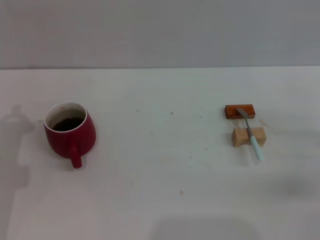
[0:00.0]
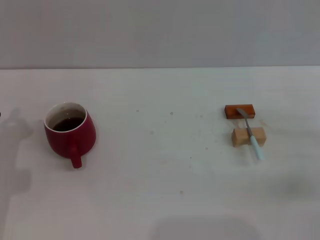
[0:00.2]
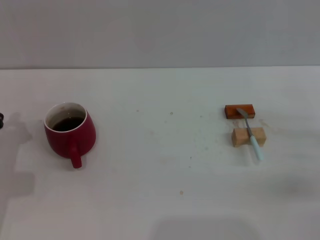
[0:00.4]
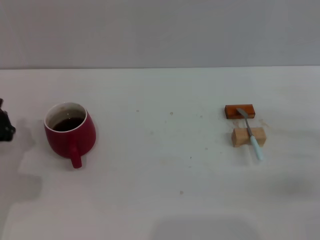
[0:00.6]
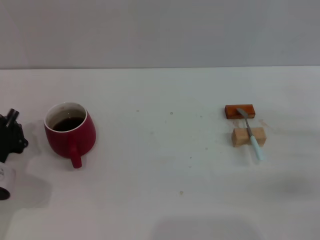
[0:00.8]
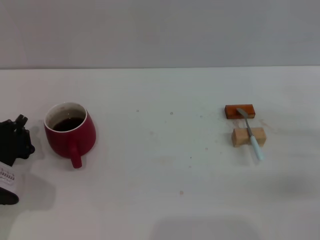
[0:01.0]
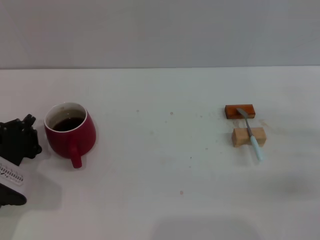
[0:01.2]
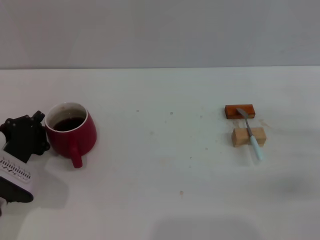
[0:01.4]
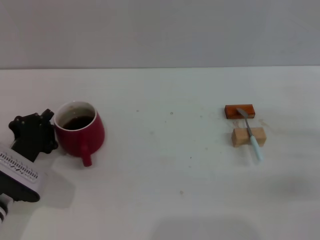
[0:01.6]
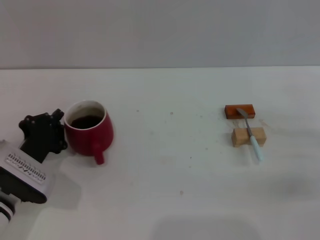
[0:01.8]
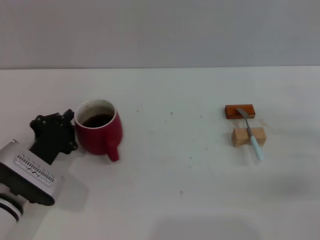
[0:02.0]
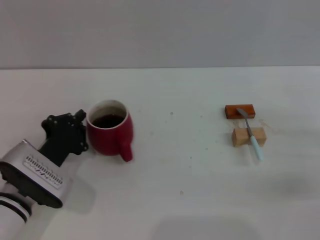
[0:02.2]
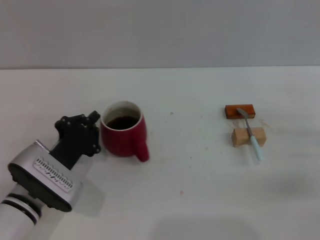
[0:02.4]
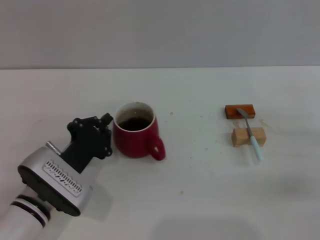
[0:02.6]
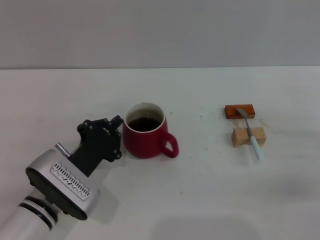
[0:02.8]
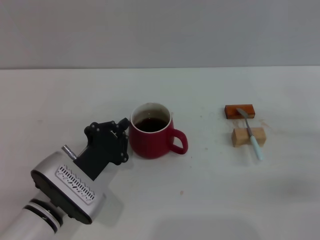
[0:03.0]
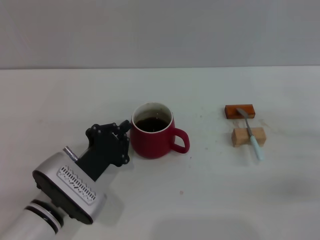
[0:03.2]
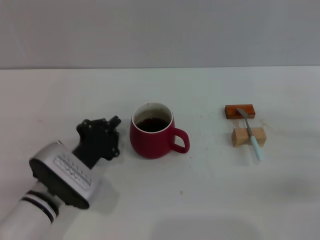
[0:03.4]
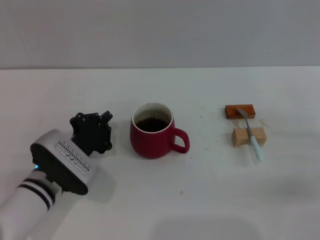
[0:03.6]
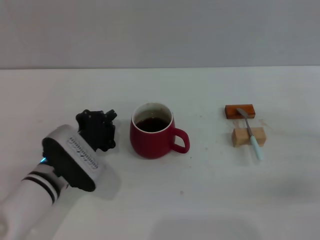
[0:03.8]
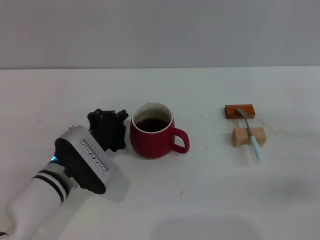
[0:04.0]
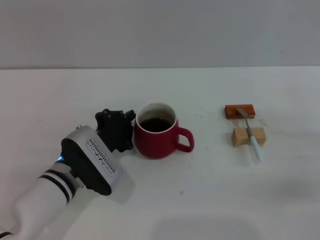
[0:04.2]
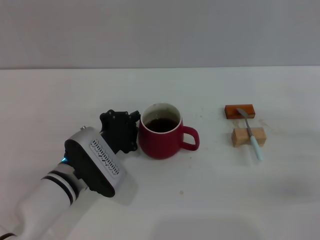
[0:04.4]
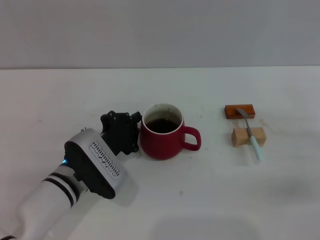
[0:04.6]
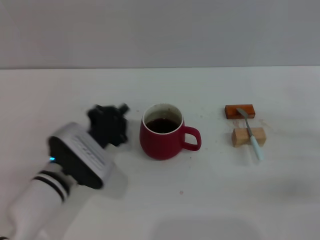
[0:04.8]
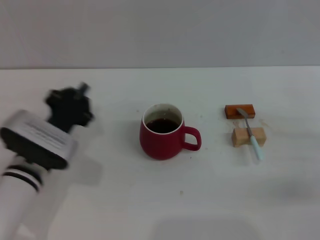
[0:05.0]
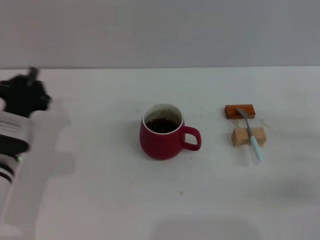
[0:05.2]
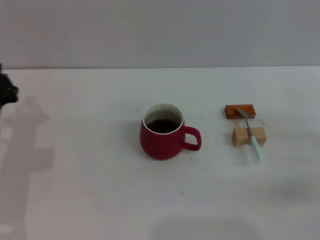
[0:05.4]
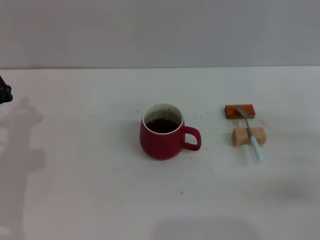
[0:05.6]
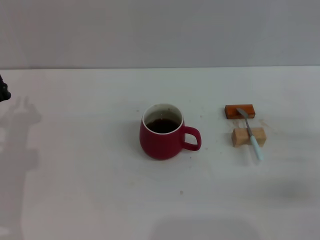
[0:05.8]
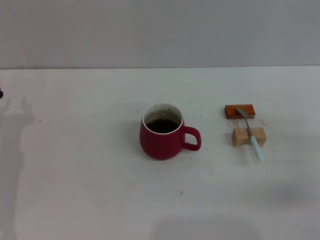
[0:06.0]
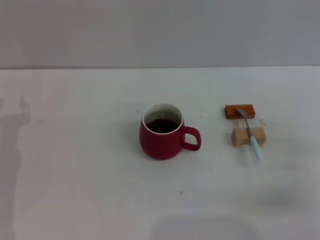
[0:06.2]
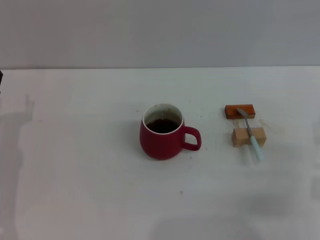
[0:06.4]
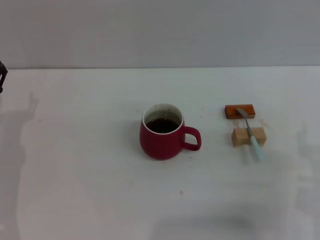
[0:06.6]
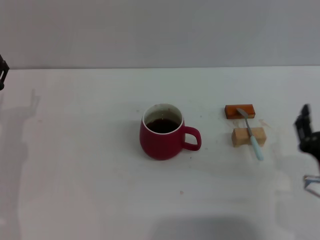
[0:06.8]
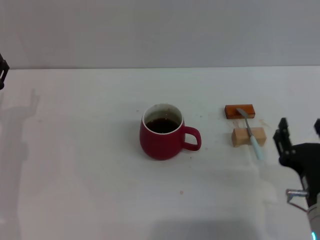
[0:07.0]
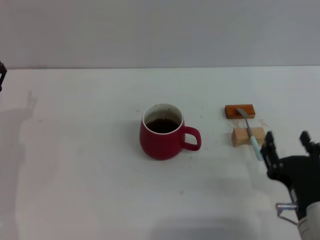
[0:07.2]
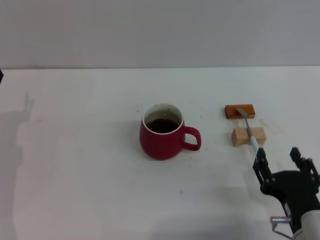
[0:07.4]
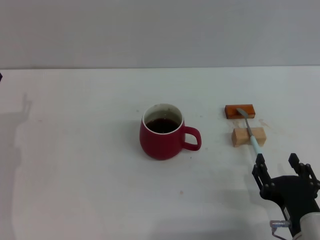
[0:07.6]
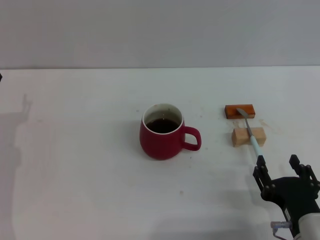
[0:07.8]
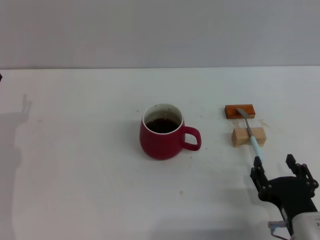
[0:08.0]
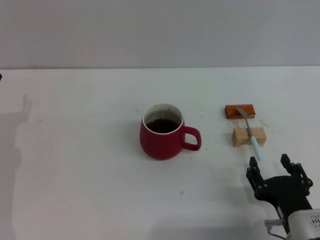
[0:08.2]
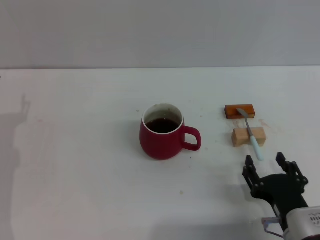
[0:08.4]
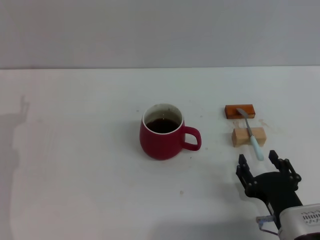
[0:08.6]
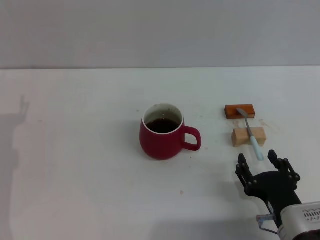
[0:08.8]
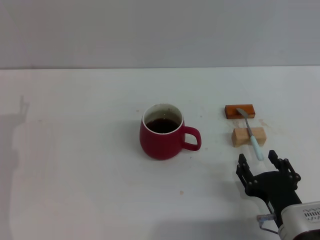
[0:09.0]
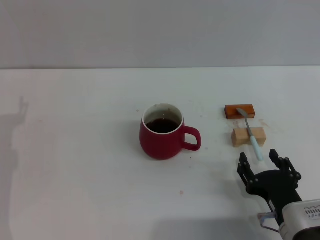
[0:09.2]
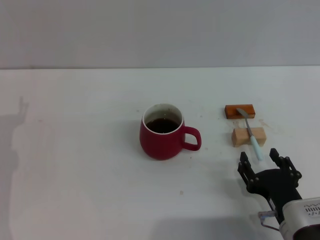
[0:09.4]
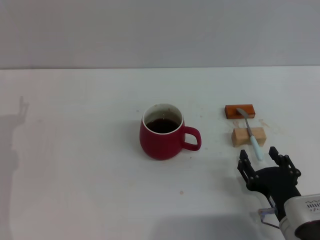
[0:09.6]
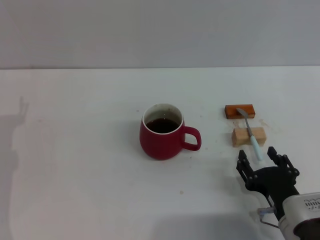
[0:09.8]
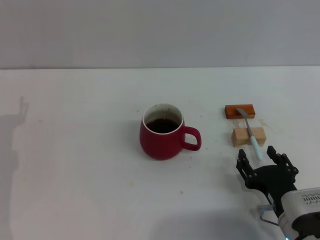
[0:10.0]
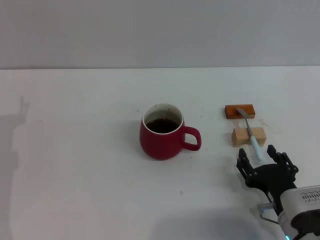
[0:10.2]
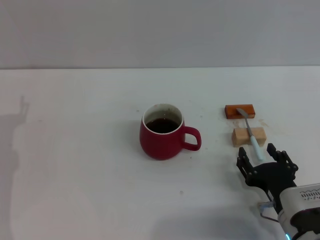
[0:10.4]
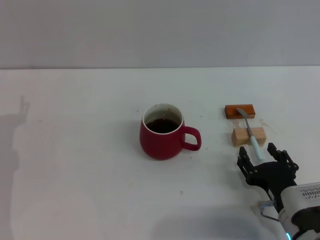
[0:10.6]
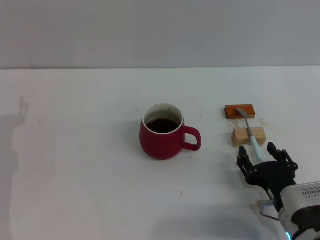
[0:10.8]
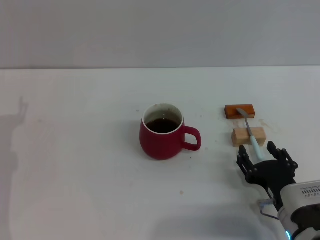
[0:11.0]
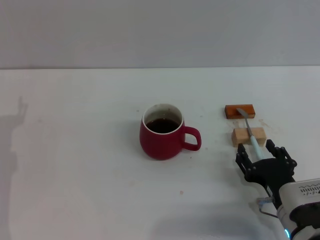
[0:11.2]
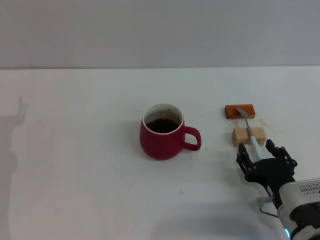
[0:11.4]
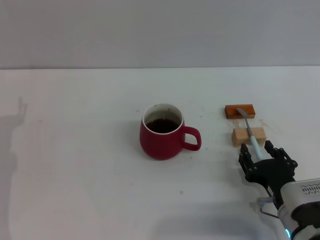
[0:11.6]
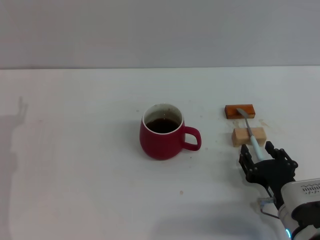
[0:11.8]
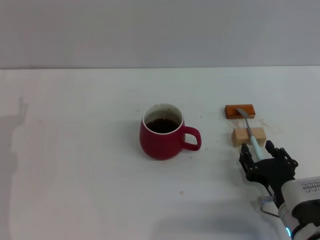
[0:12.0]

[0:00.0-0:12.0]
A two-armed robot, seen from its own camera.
Task of the whole recording: Move the red cup to the center, lift the blue spoon, stir it three times in the cup, and put the spoon into the cup.
Step, 0:00.0 to 0:04.8: Move the cup with coffee to the center of view with the left gripper.
0:00.0 to 0:01.6: The left gripper shifts by approximately 5 cm.
0:01.6 to 0:03.0: The left gripper moves to the right, roughly 10 cm.
0:03.0 to 0:04.4: There are only small adjustments of the grippers.
0:04.4 to 0:06.0: The left gripper shifts some 15 cm to the left.
0:06.0 to 0:07.6: The right gripper is displaced to the left and backward by approximately 15 cm.
0:07.6 to 0:09.0: The grippers move only a little.
0:09.0 to 0:10.4: The grippers make only small movements.
0:10.4 to 0:12.0: Neither gripper changes place.

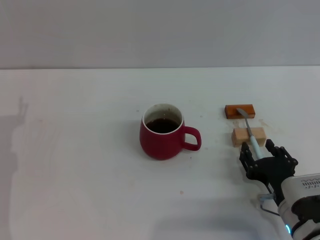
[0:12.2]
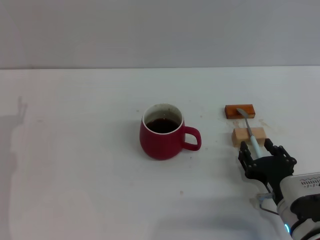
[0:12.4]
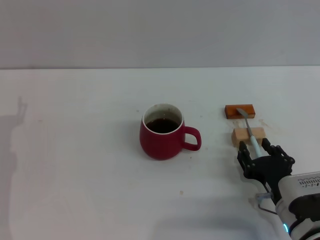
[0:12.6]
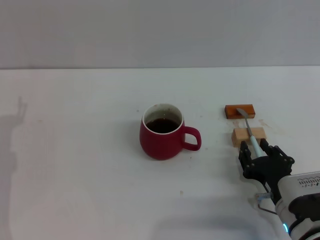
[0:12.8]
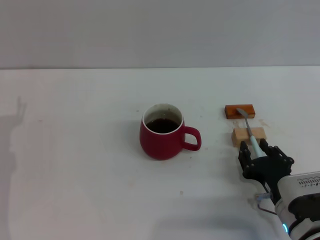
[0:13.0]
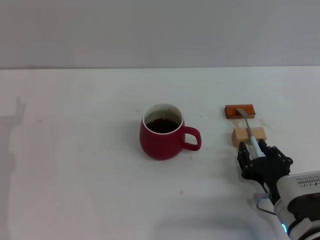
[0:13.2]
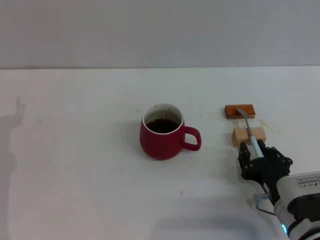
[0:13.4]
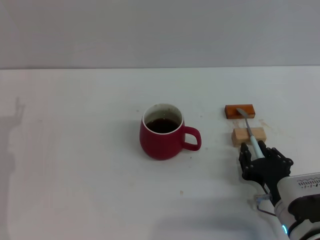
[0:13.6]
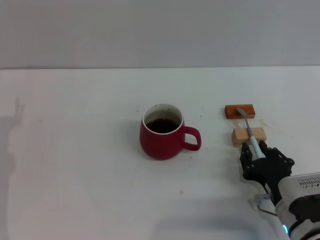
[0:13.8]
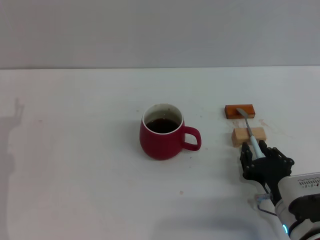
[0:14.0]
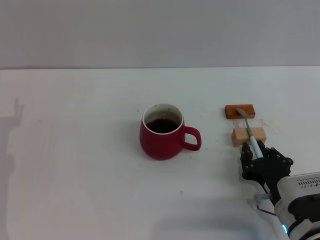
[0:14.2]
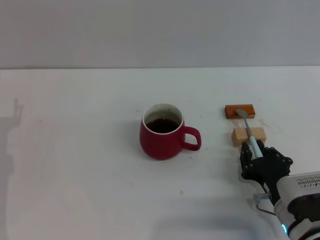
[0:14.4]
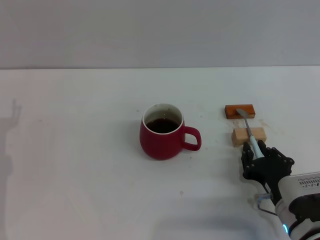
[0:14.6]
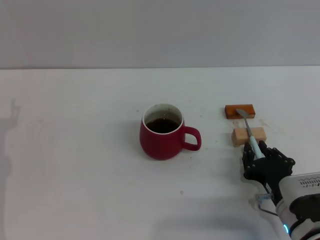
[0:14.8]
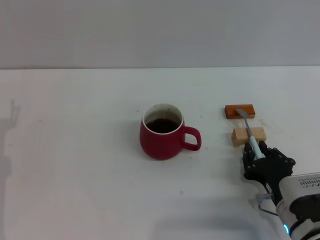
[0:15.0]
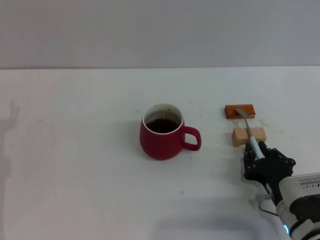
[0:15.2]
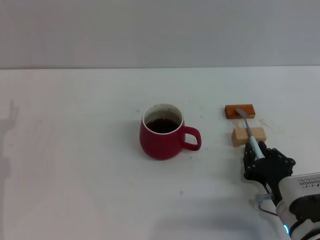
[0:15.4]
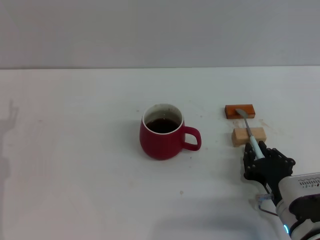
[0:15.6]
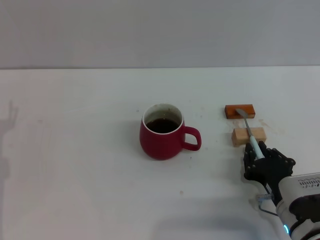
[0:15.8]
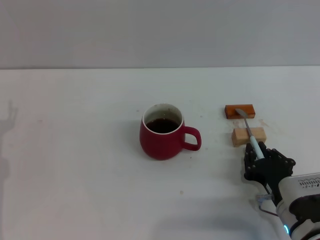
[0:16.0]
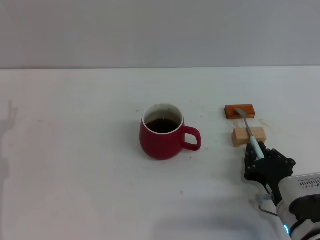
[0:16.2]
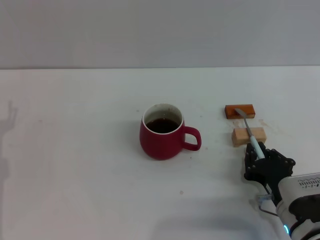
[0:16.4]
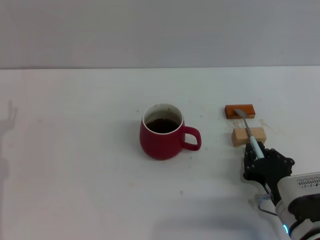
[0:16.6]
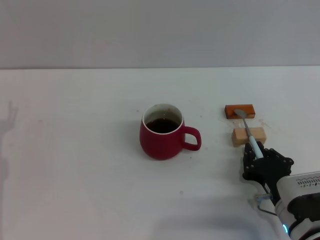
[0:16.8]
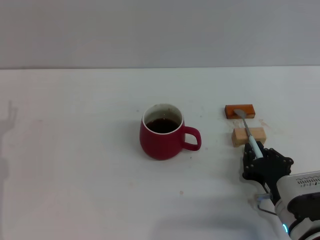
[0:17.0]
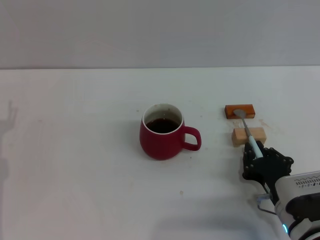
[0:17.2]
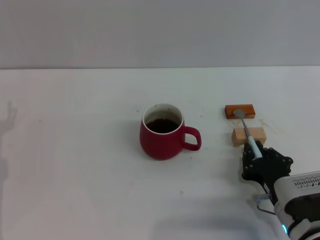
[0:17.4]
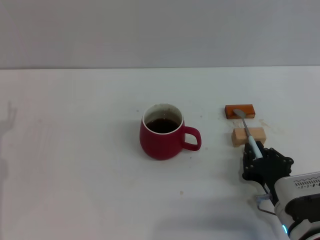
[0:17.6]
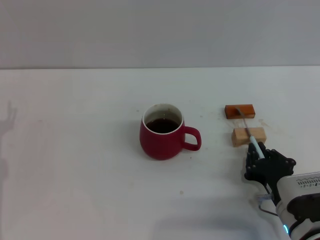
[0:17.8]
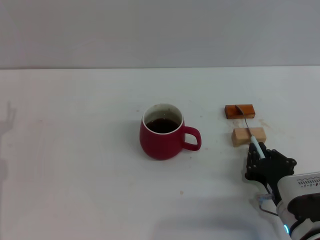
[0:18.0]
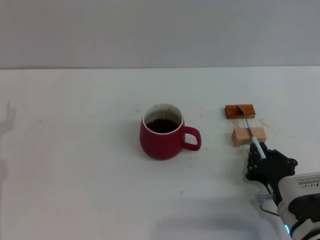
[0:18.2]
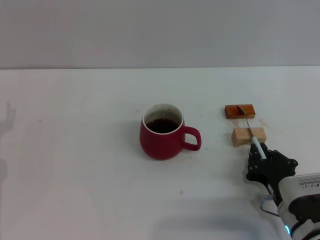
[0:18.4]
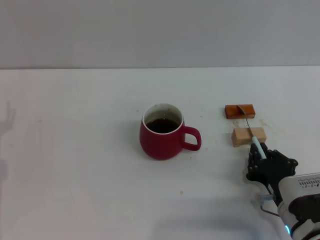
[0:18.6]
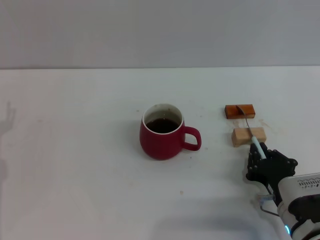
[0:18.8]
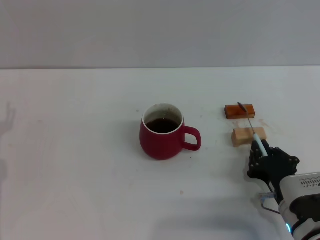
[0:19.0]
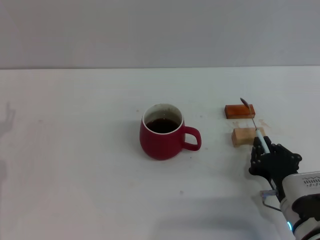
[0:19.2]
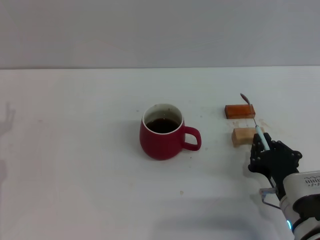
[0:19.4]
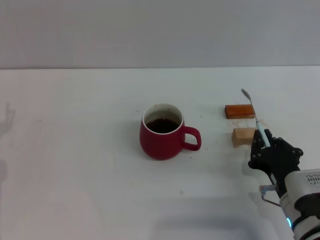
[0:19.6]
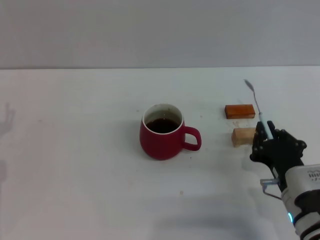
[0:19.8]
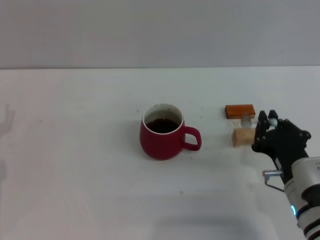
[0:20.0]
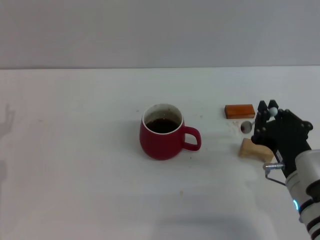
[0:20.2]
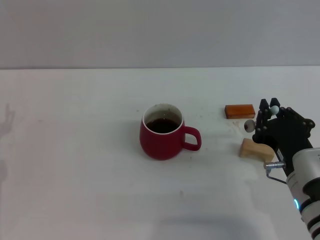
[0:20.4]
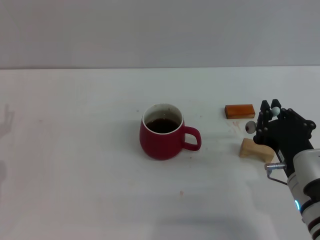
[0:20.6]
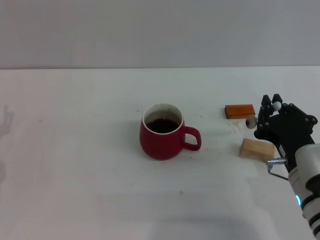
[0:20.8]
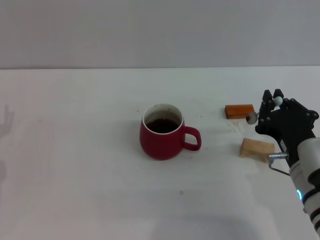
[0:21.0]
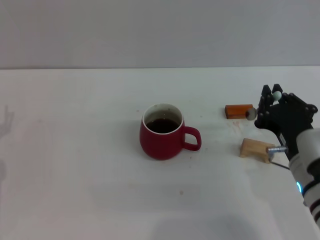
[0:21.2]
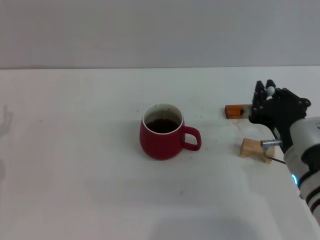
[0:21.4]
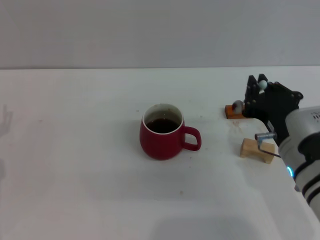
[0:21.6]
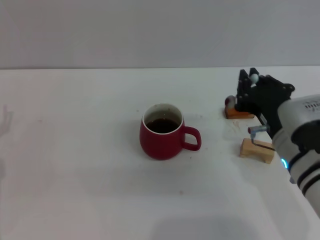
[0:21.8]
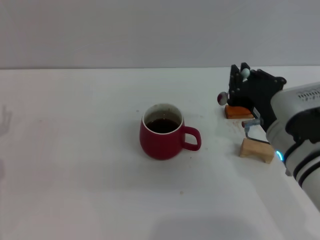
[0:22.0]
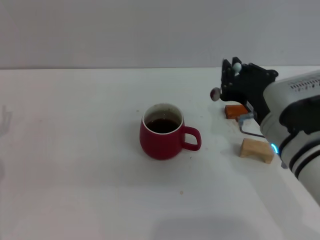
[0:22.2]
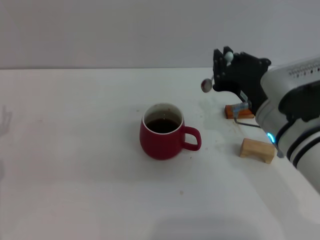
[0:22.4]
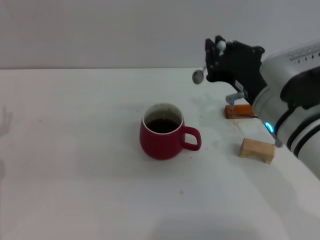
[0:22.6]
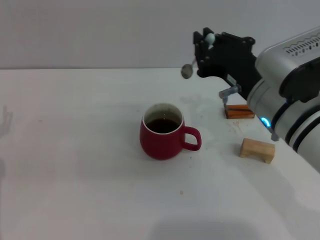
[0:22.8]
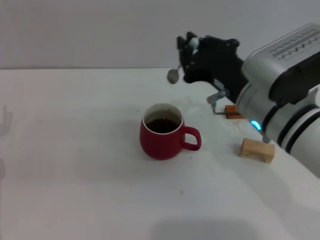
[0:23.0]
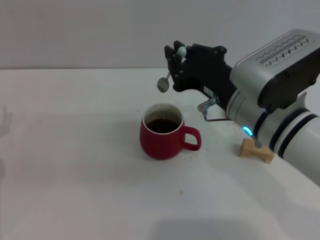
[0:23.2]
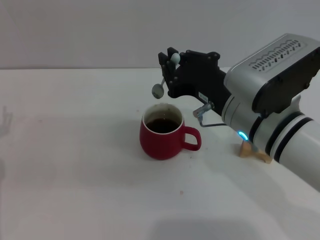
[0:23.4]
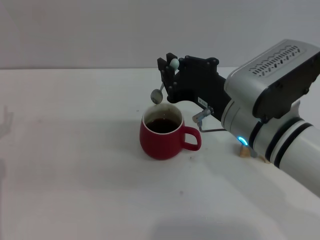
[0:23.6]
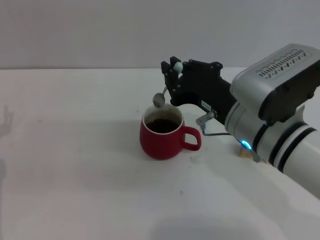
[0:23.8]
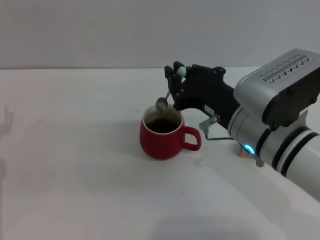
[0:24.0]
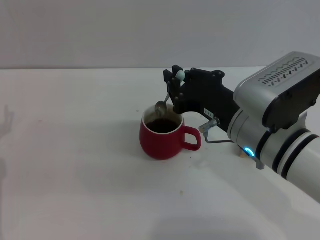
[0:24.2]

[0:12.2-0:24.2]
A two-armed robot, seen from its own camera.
Task of the whole recording: Move the red cup to the center, lift the blue spoon, stir it three times in the cup, and put the spoon into the cup.
Step, 0:12.2 to 0:20.6: Pick up the spoon with the right gripper.
0:12.2 to 0:15.2: Both grippers stay put.
0:15.2 to 0:18.2: The two grippers keep their place.
0:18.2 to 0:19.8: The grippers stay close to where they were, moving slightly.
0:19.8 to 0:21.2: The right gripper heads upward, covering roughly 5 cm.
0:21.2 to 0:22.6: The right gripper heads upward and forward, covering approximately 10 cm.
0:22.6 to 0:24.2: The grippers stay close to where they were, moving slightly.
